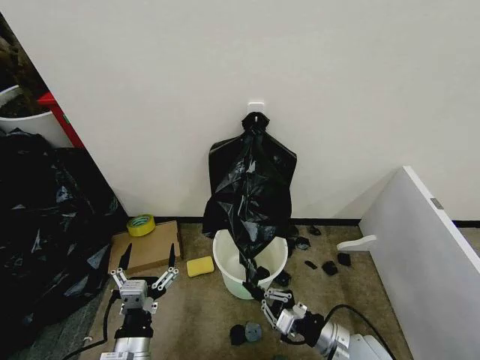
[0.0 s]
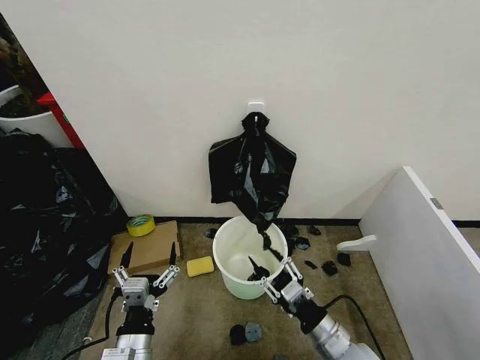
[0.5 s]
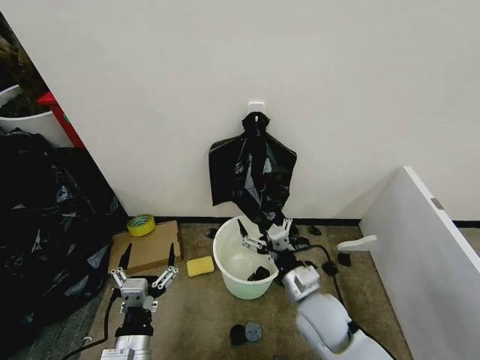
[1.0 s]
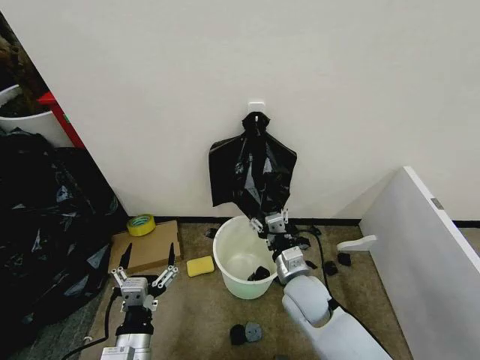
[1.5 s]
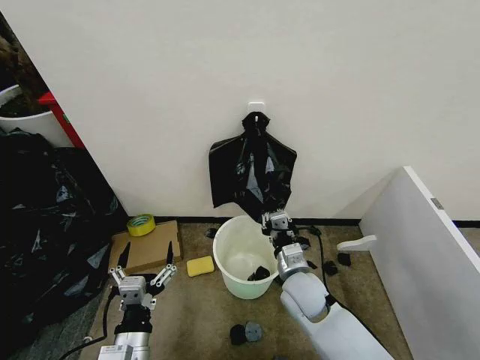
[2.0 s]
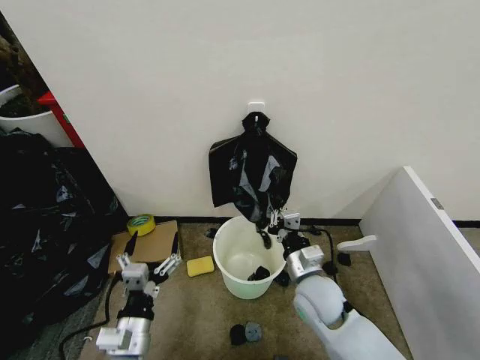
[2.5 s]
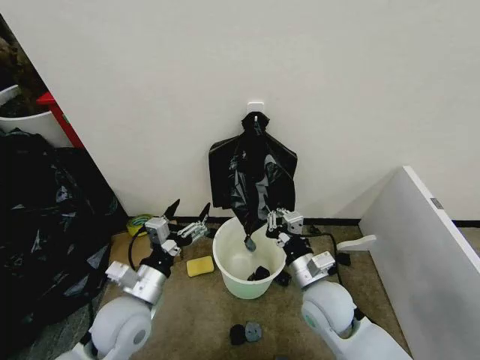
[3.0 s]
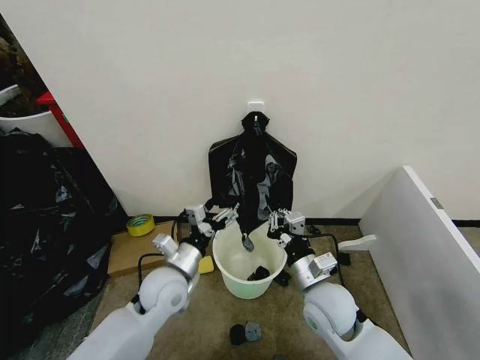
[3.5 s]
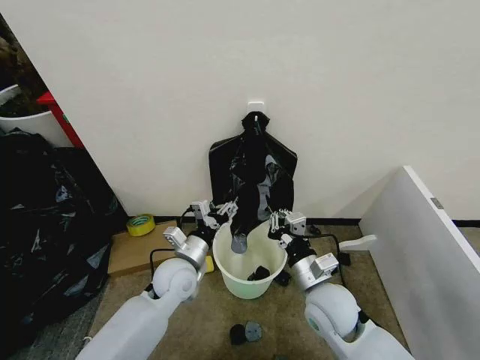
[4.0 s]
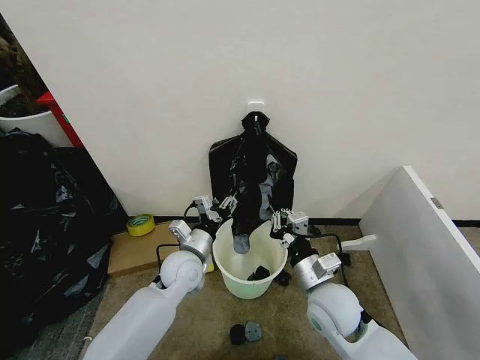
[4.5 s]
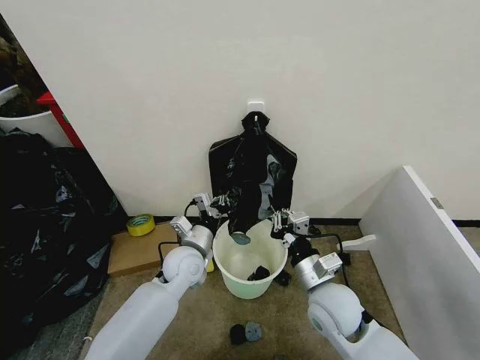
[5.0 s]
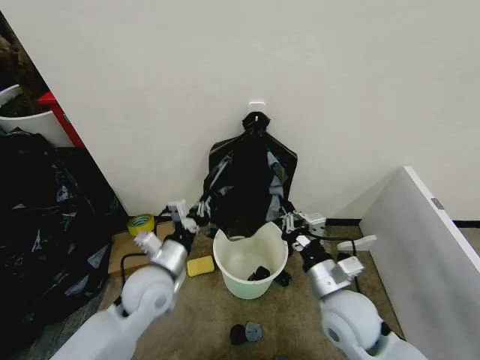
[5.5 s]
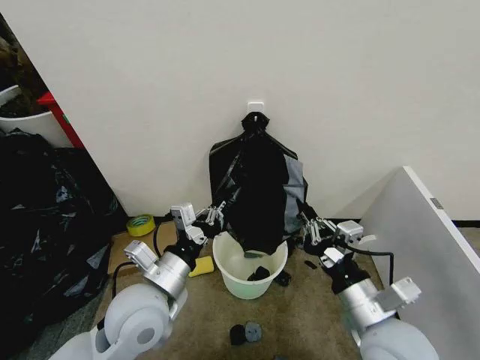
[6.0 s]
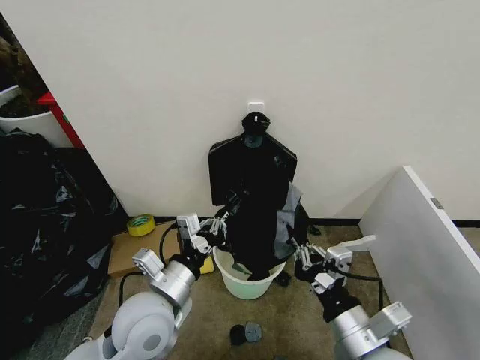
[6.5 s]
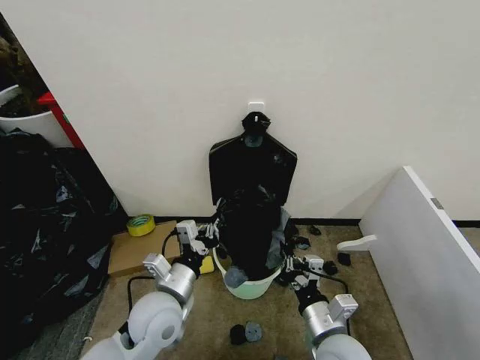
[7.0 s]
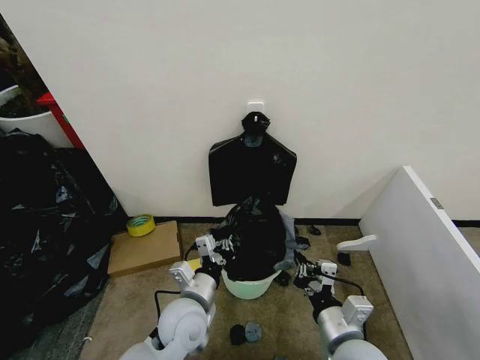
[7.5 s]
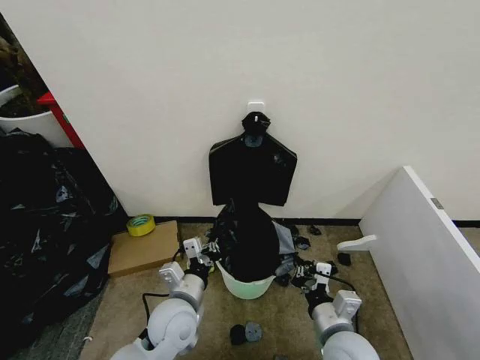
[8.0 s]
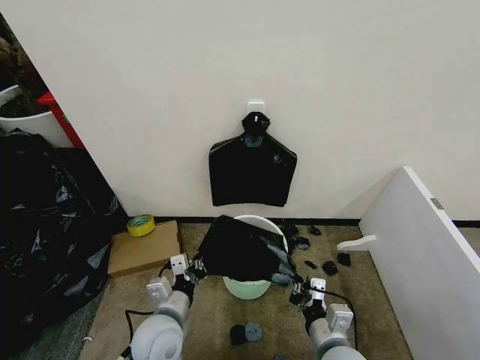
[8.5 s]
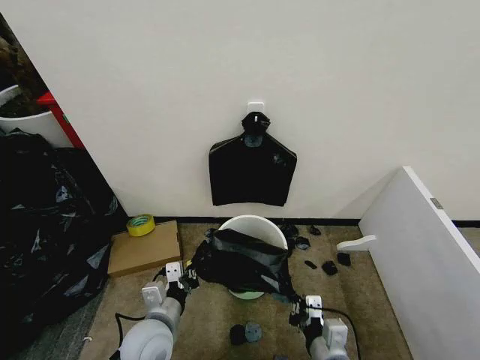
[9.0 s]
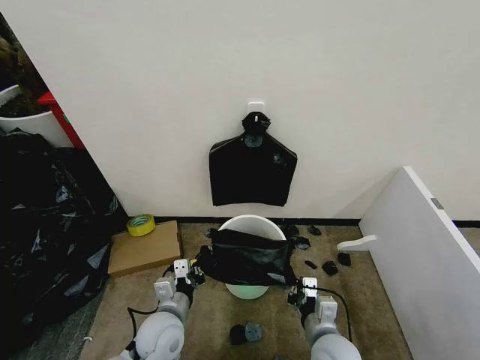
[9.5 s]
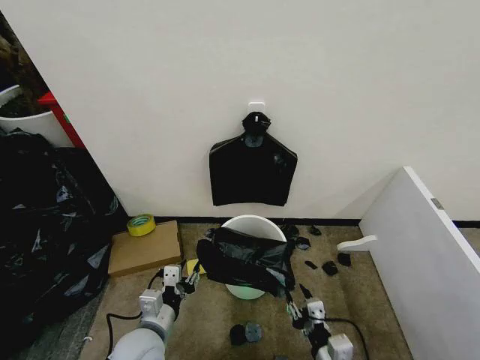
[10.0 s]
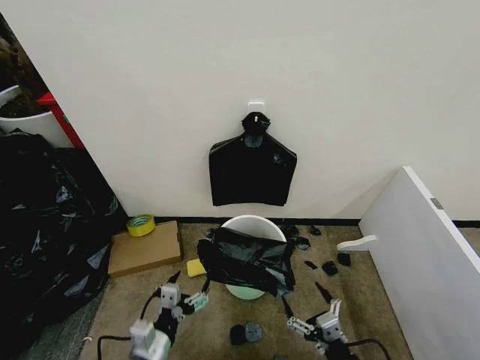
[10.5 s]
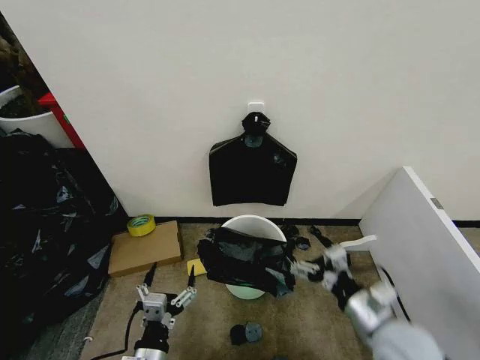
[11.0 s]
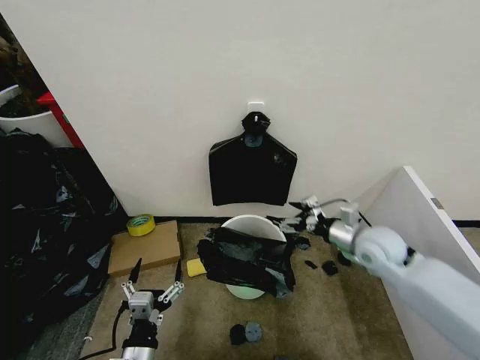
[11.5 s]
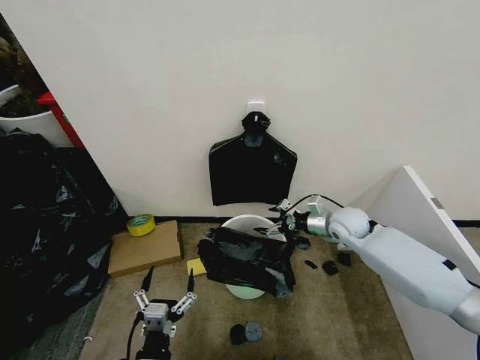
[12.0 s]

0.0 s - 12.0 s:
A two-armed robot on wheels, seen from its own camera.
Task of the whole recording: Place the garbage bag over the trash bin.
0.0 s - 2.0 s: The right gripper moves to the left, forward and upward, approximately 15 cm, and opens, then closes once more.
2.0 s - 4.0 s: The right gripper changes place by some 5 cm, while the left gripper travels forward by roughly 20 cm.
4.0 s - 6.0 s: Both grippers move backward and upward, about 15 cm. The left gripper closes up.
6.0 s - 8.0 s: Both grippers travel together downward, some 10 cm.
8.0 s - 10.0 s: The right gripper goes forward and backward, roughly 5 cm each way, reversing 2 times, and opens its fingers, while the left gripper moves to the left, approximately 5 cm, and opens.
10.0 s - 12.0 s: The right gripper travels forward by about 35 cm, and opens. The left gripper heads backward, covering approximately 10 cm, and opens its fingers.

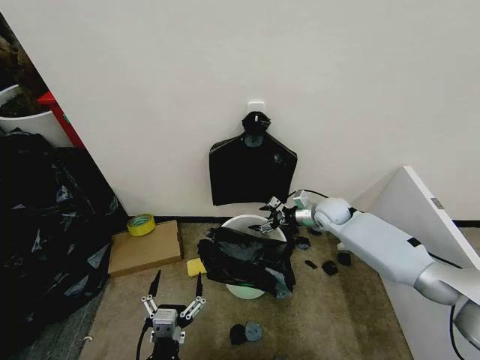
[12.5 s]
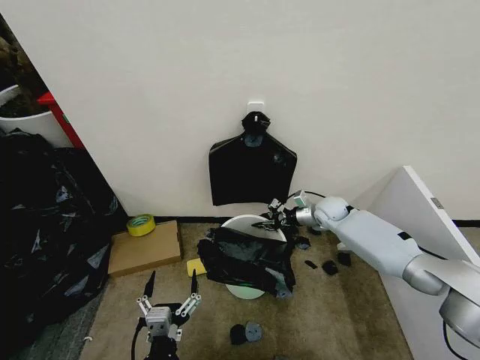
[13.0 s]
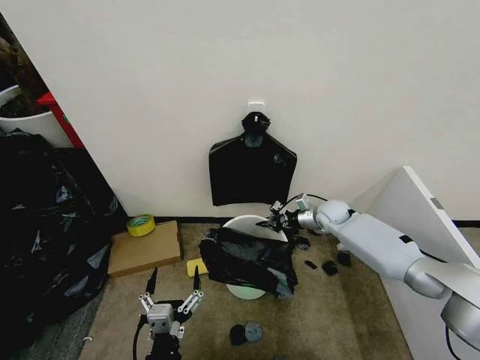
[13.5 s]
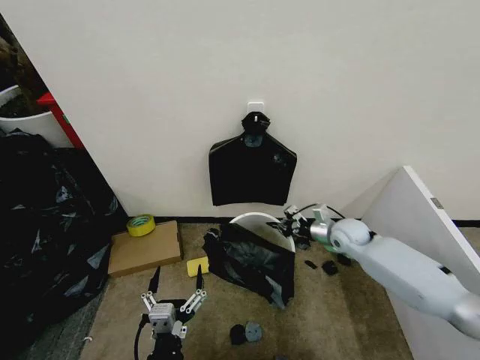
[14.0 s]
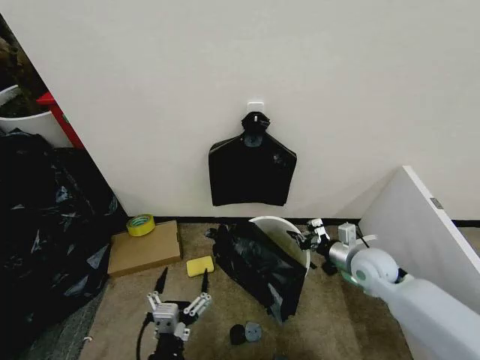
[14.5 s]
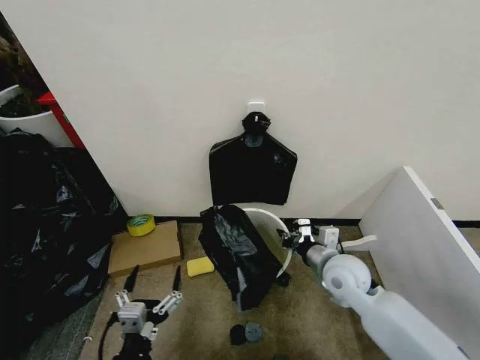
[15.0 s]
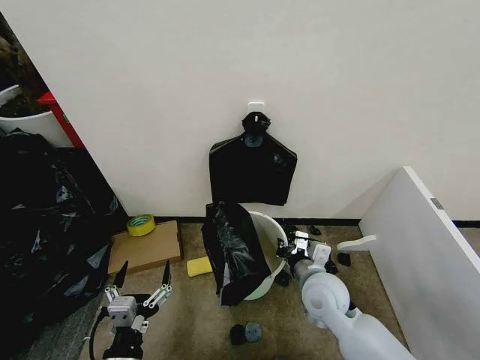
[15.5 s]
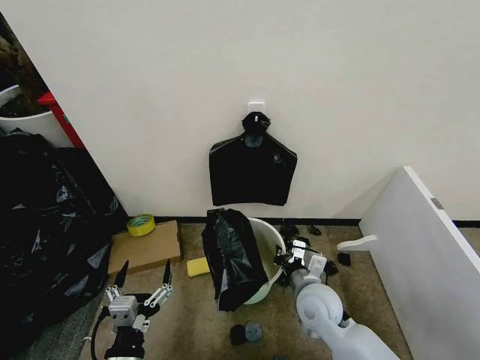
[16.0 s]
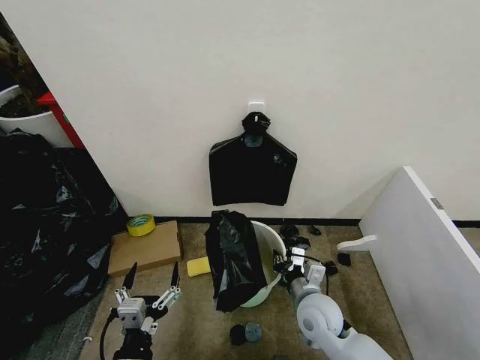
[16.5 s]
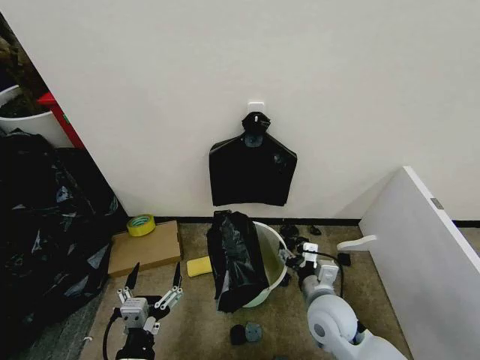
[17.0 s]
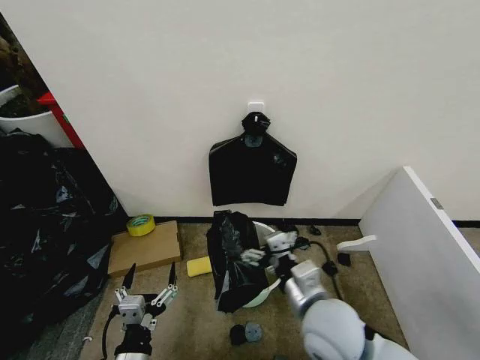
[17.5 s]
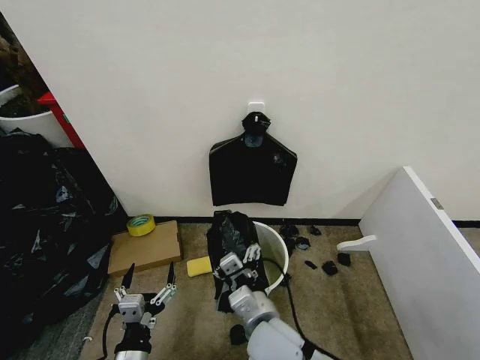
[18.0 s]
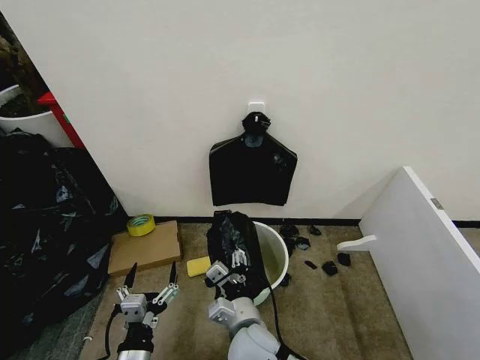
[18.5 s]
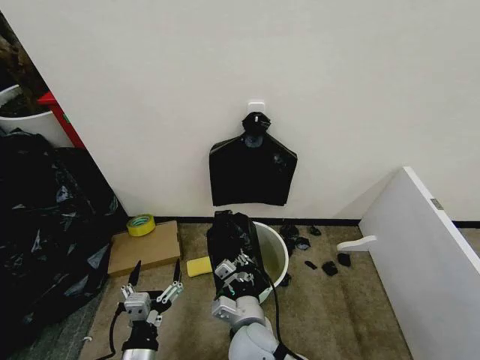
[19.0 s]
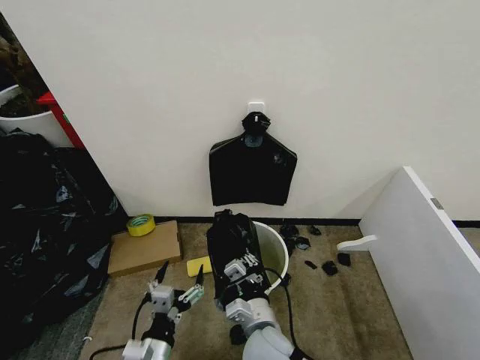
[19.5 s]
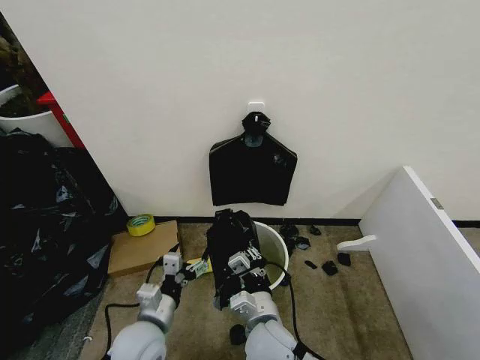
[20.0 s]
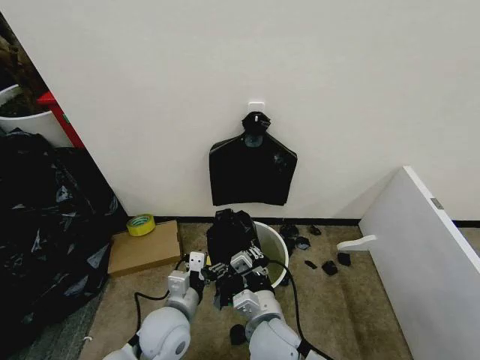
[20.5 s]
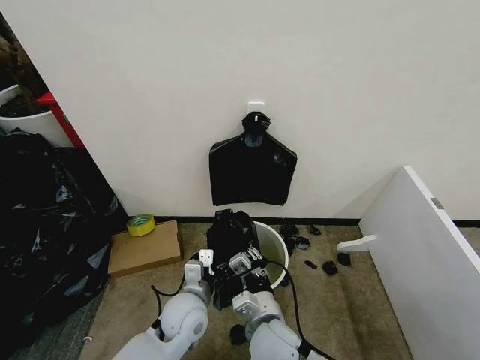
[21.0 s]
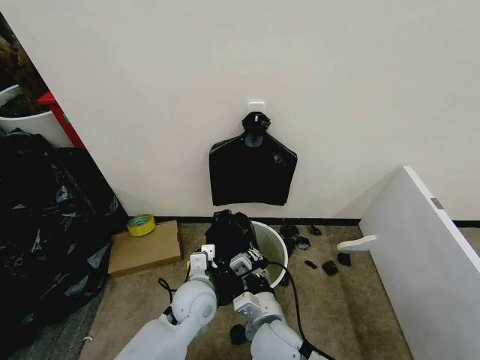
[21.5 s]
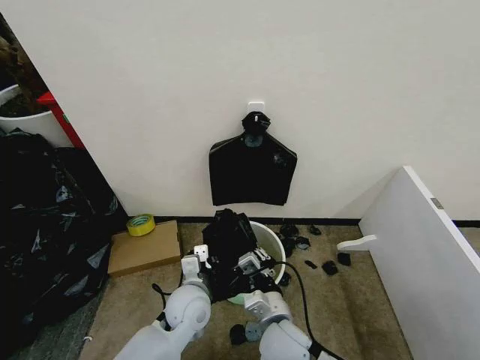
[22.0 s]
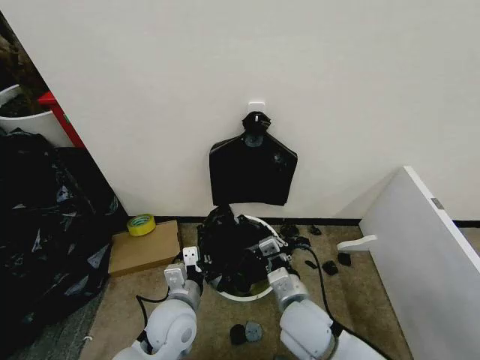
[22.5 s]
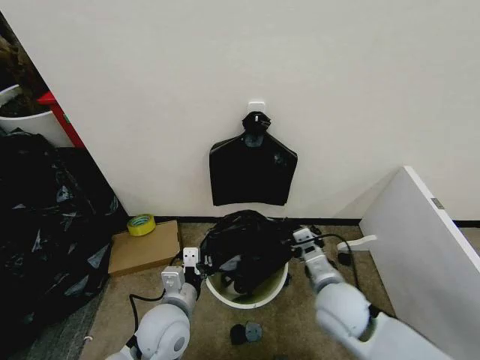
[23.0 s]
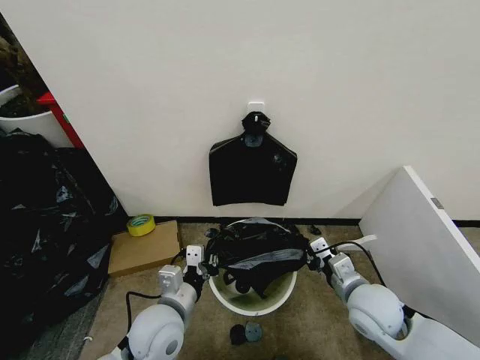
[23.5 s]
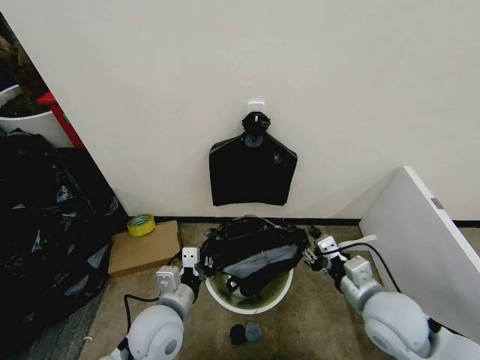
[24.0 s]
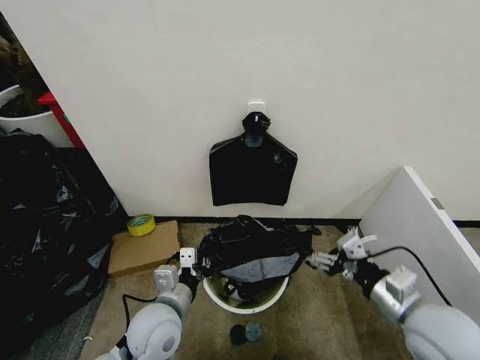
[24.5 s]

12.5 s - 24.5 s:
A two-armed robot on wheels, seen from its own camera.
Task of the whole recording: Place the garbage bag over the trash bin.
12.5 s - 14.5 s: The right gripper is displaced backward by approximately 15 cm, and closes its fingers.
14.5 s - 16.5 s: The right gripper goes approximately 20 cm to the left and backward. The left gripper travels to the left by approximately 5 cm.
16.5 s - 18.5 s: The right gripper moves to the left and backward, some 15 cm, and opens, then closes again.
18.5 s - 20.5 s: The left gripper is displaced forward and to the right by some 15 cm, while the right gripper closes.
20.5 s - 22.5 s: The left gripper closes its fingers, while the right gripper shifts roughly 5 cm to the right.
22.5 s - 24.5 s: The right gripper goes approximately 20 cm to the right and upward, and opens.

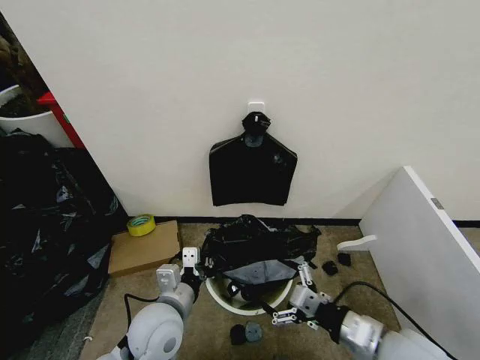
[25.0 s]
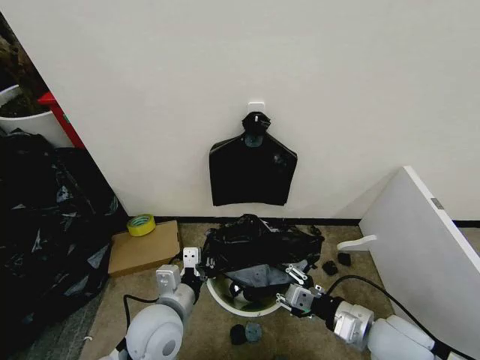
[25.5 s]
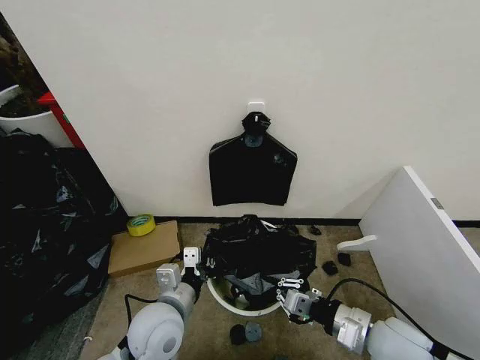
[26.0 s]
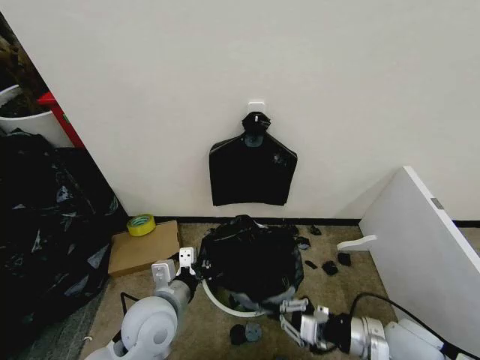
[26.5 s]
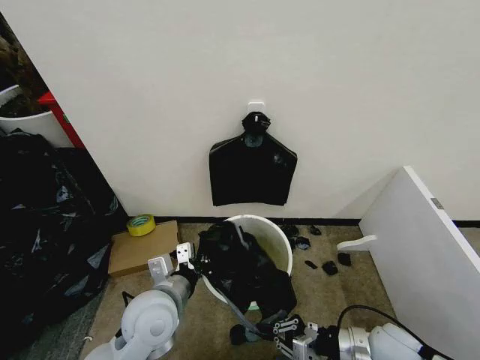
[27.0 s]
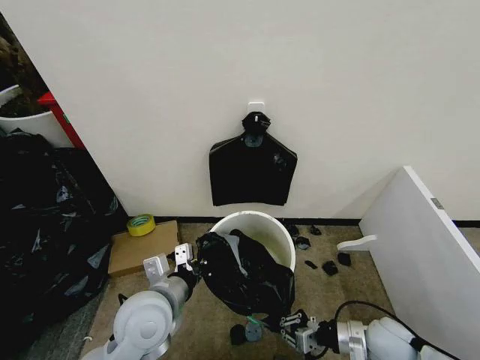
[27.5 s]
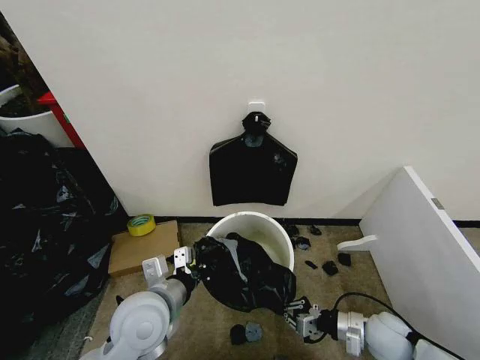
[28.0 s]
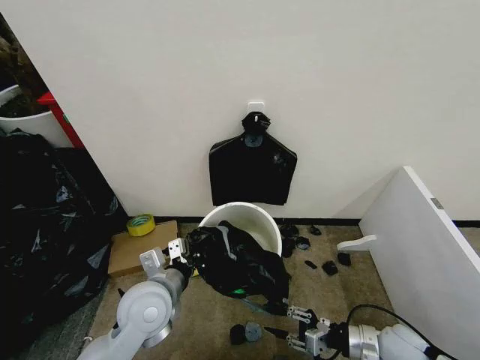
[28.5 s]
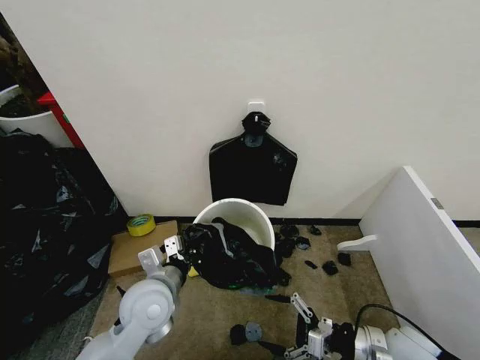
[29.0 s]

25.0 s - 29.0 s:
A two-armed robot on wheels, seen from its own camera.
Task of the whole recording: Place the garbage bag over the trash bin.
25.0 s - 27.0 s: The right gripper travels downward by some 10 cm, and closes.
27.0 s - 29.0 s: The right gripper opens its fingers.
